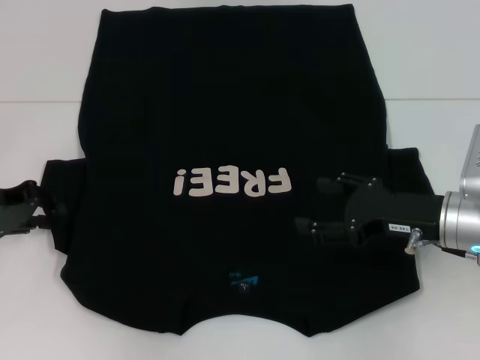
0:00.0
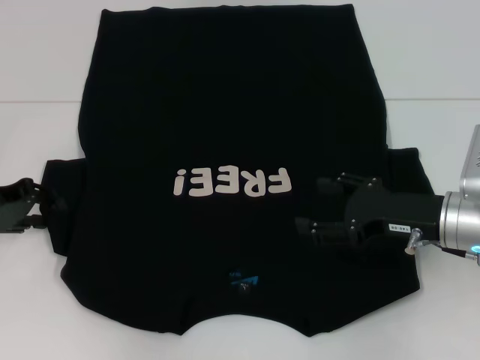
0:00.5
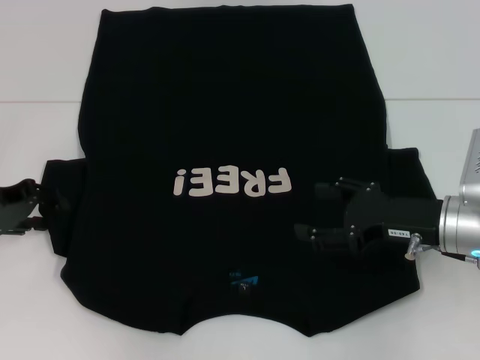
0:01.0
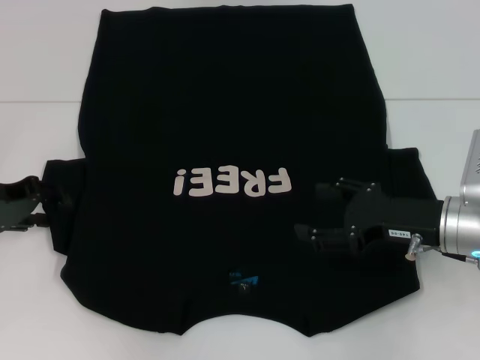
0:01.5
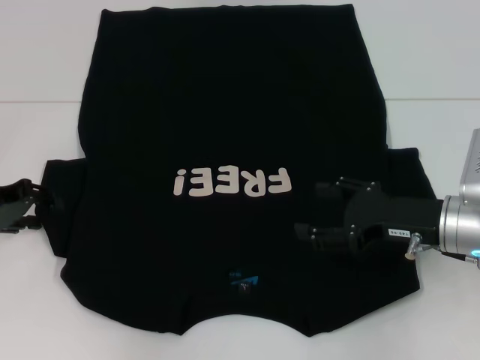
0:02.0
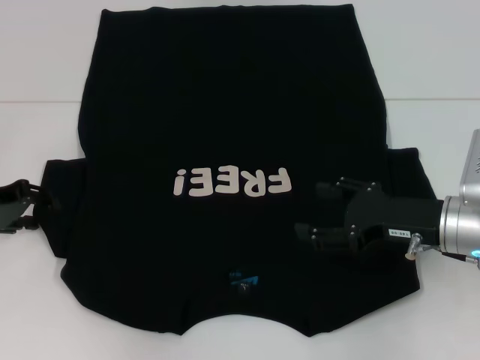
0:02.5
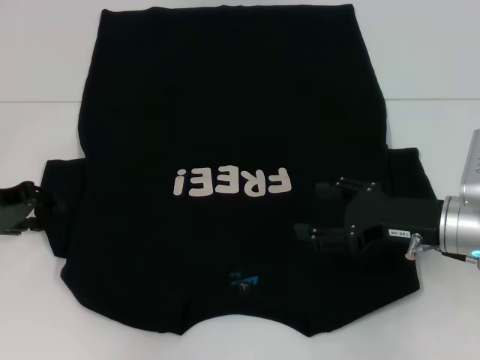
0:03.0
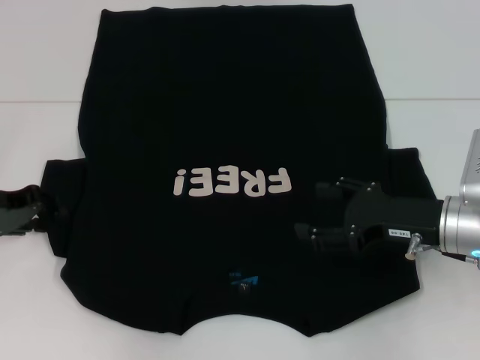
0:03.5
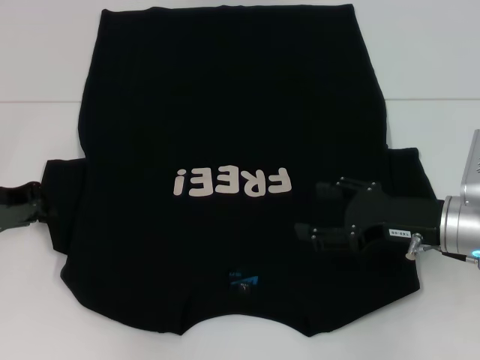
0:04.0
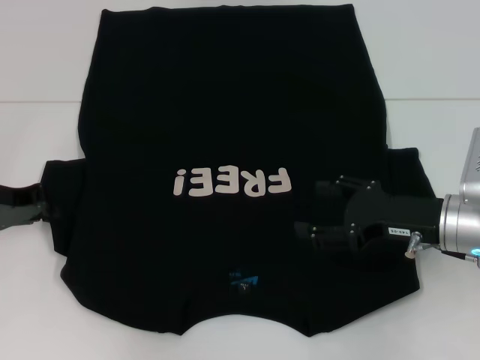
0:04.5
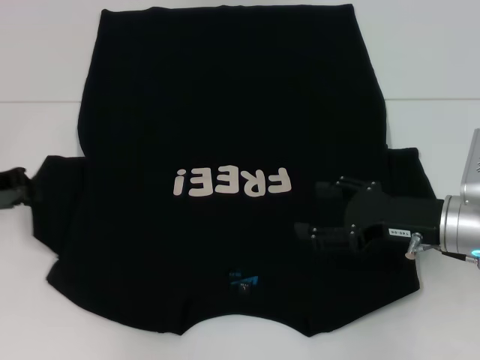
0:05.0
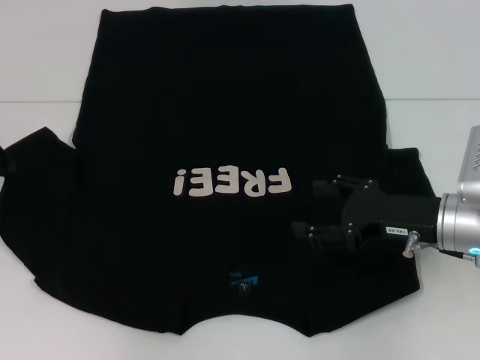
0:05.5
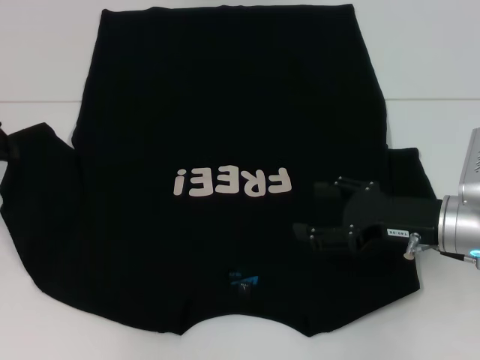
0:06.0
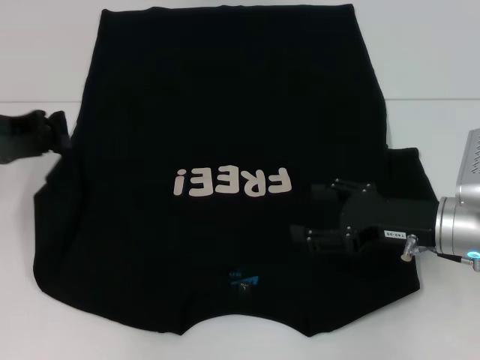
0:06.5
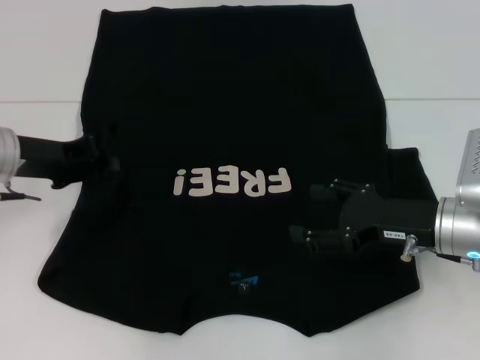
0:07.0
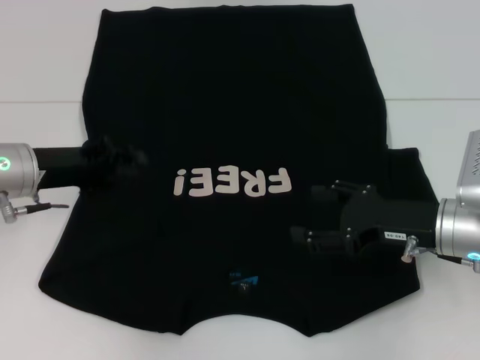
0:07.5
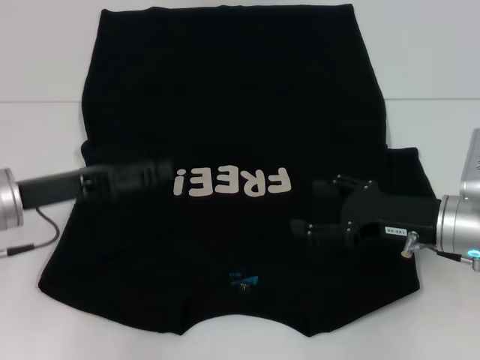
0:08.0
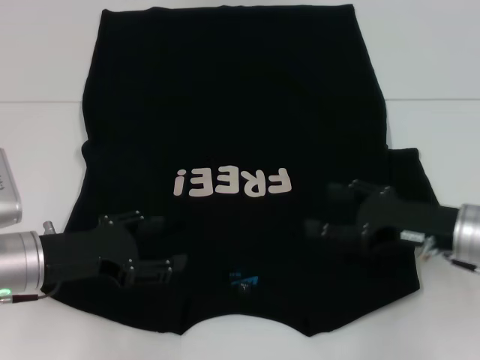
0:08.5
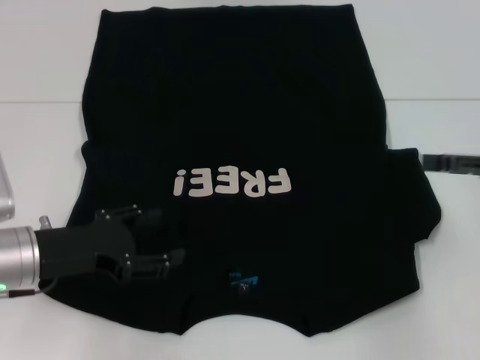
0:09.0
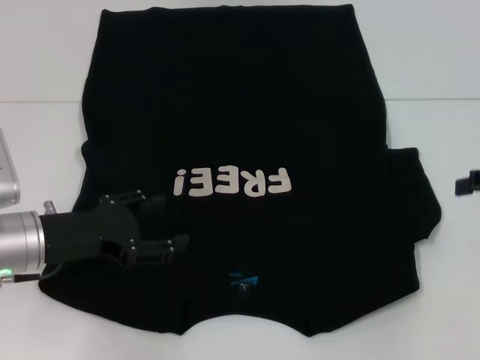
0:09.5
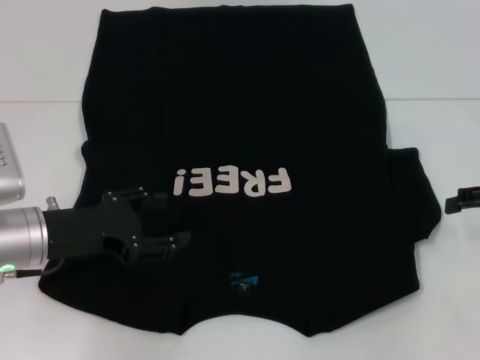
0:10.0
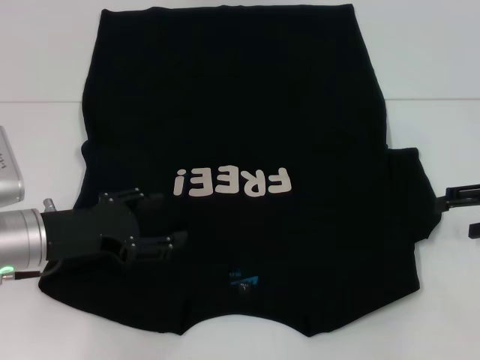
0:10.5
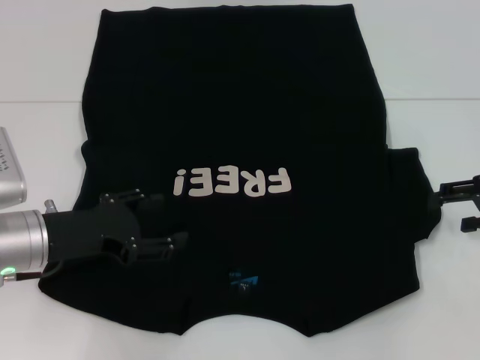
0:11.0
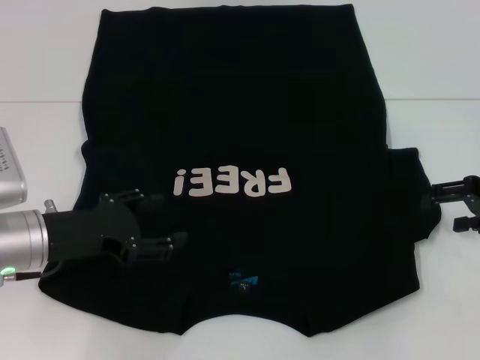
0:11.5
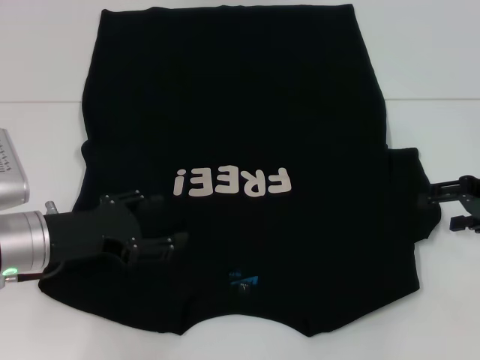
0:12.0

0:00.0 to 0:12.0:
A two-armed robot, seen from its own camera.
Step, 0:00.0 to 0:08.0: Fold the bottom left sleeve with your left hand.
0:00.0 to 0:02.0: Both grippers stay put.
0:04.0 to 0:06.0: The left gripper moves upward, about 5 cm.
0:06.0 to 0:08.0: The left gripper heads to the right, downward and backward, covering roughly 15 cm, and opens.
0:08.0 to 0:10.0: The right gripper shifts approximately 15 cm to the right and upward. The left gripper opens.
0:10.0 to 0:12.0: The grippers move only a little.

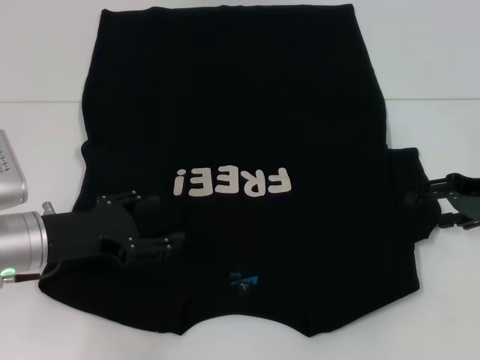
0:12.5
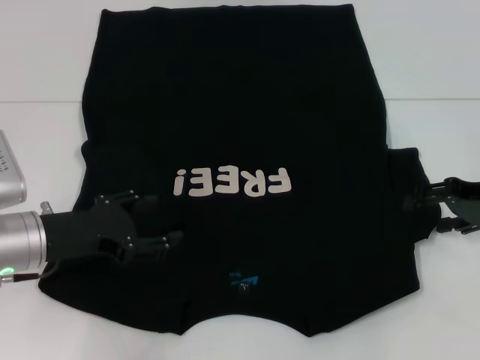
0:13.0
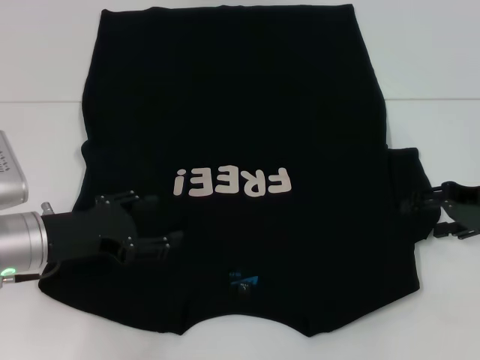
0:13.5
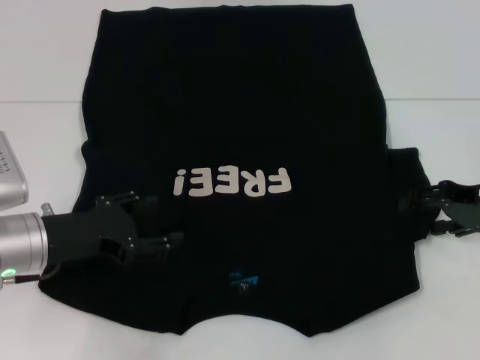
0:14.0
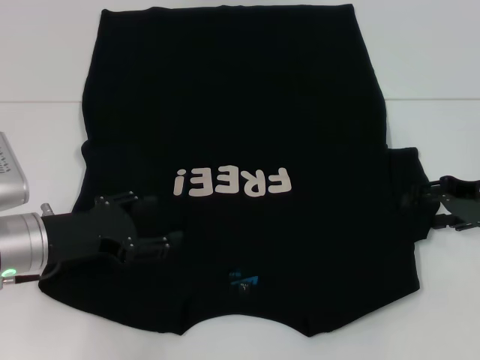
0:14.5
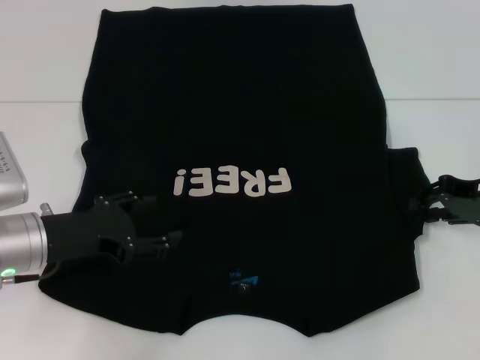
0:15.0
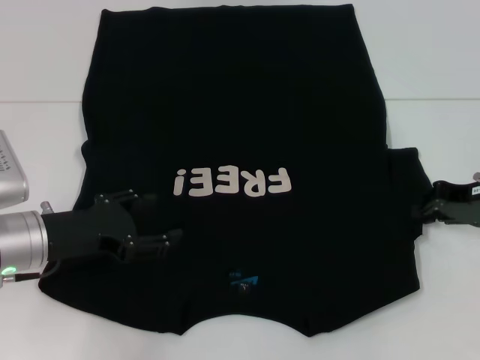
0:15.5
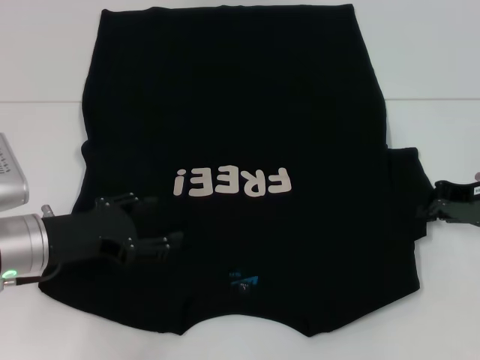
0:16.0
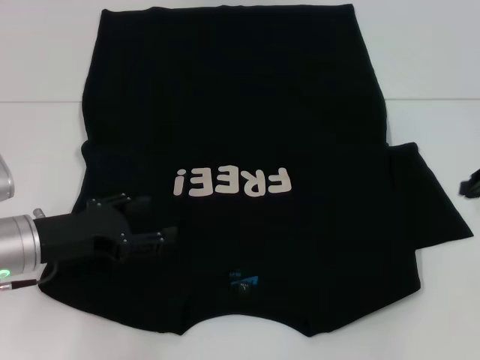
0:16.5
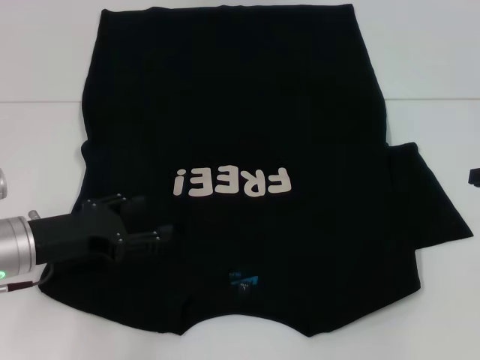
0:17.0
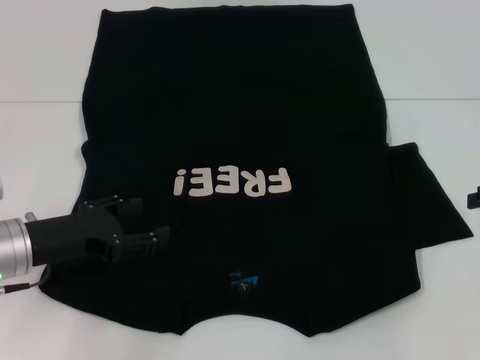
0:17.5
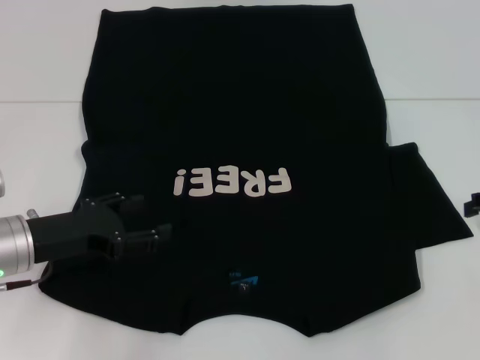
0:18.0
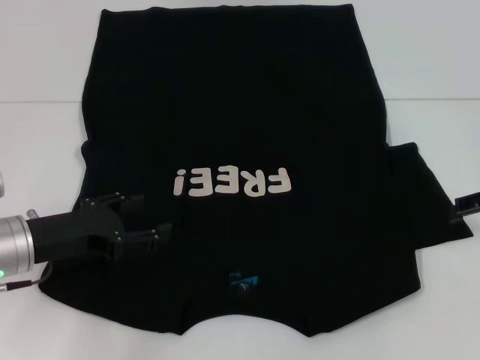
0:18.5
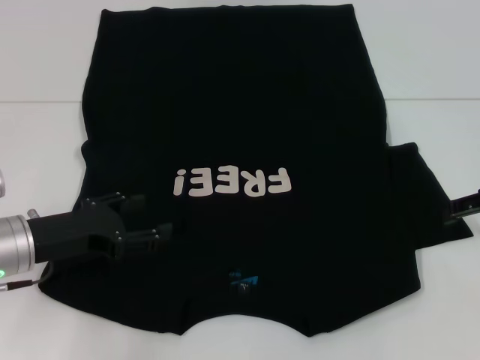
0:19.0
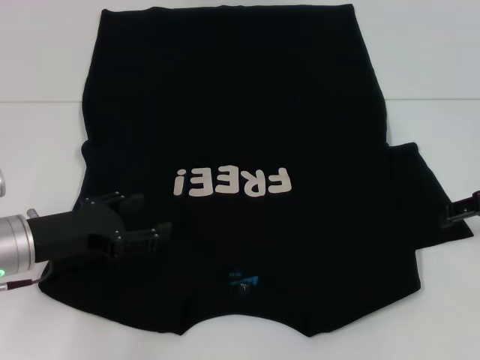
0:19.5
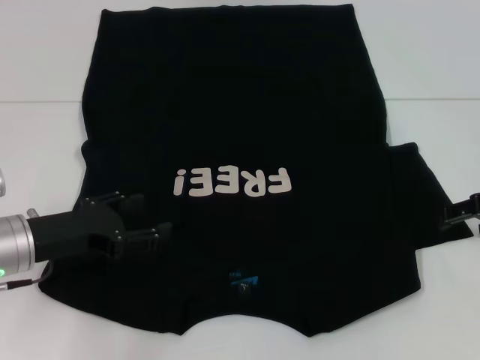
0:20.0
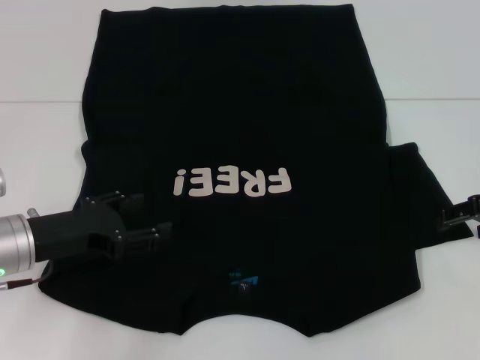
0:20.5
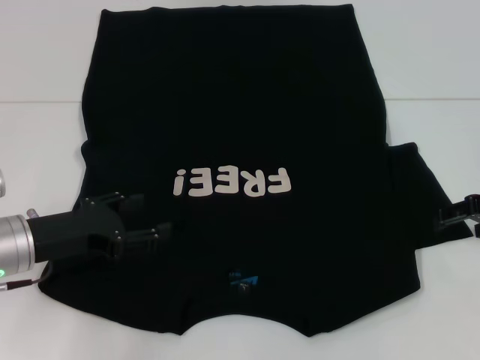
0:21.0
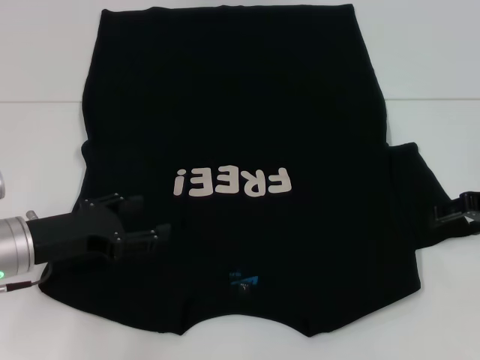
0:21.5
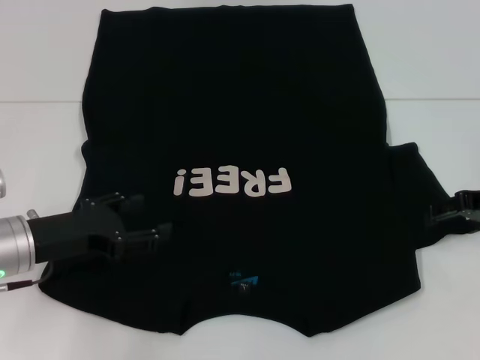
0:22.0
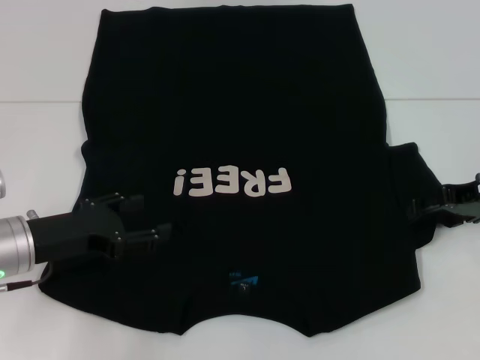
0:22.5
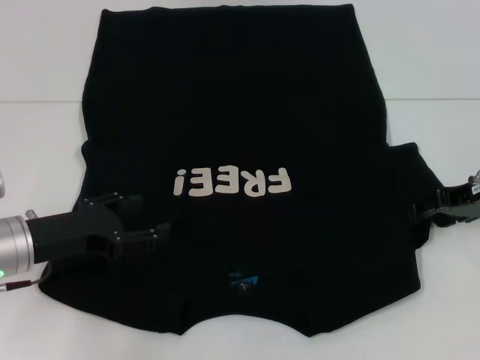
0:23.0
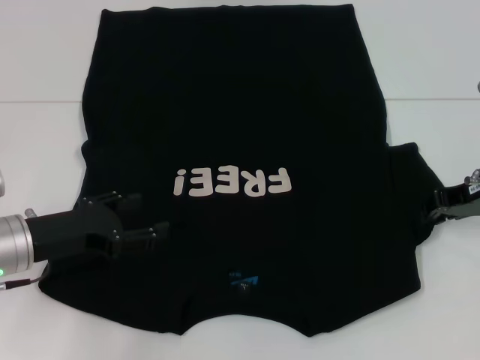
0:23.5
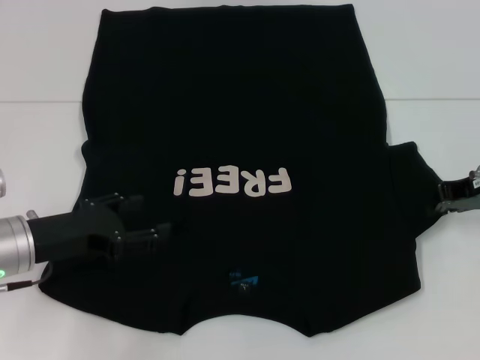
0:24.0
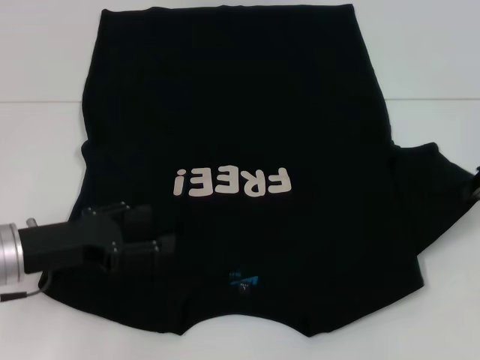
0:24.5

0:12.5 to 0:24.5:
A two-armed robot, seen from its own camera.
0:12.5 to 0:14.5: Both grippers stay put.
0:14.5 to 0:16.5: The right gripper closes up.
0:20.5 to 0:22.5: There are only small adjustments of the grippers.
0:22.5 to 0:24.5: The right gripper closes.

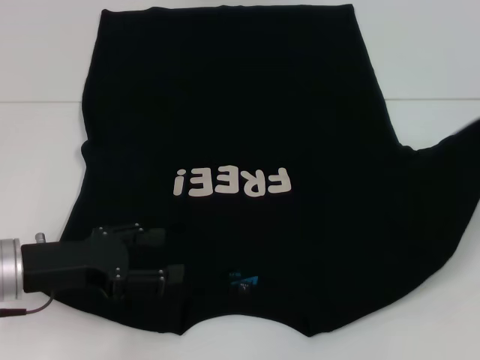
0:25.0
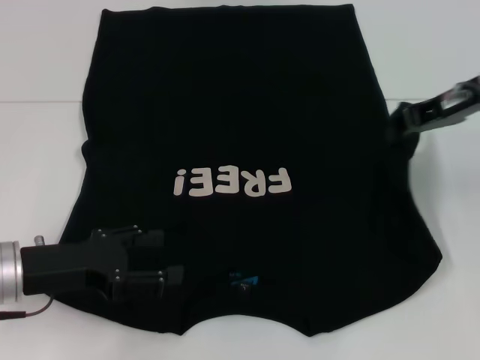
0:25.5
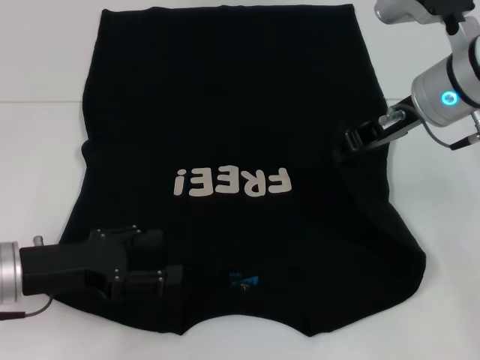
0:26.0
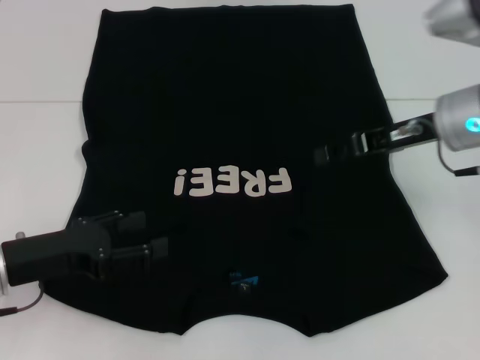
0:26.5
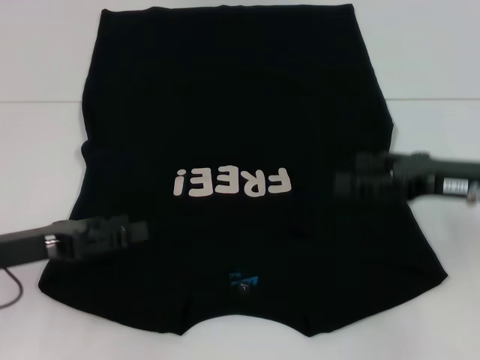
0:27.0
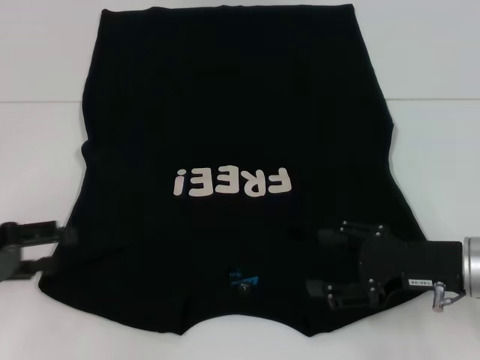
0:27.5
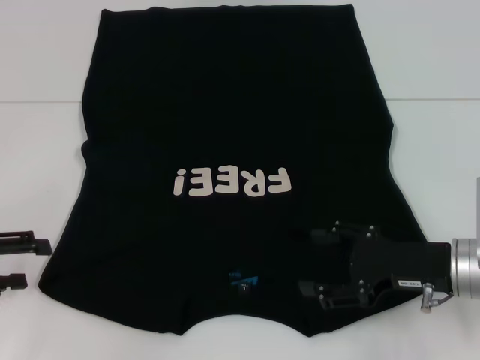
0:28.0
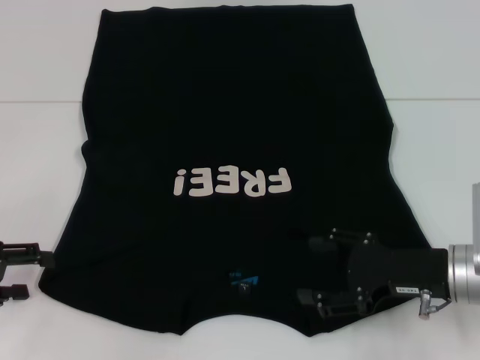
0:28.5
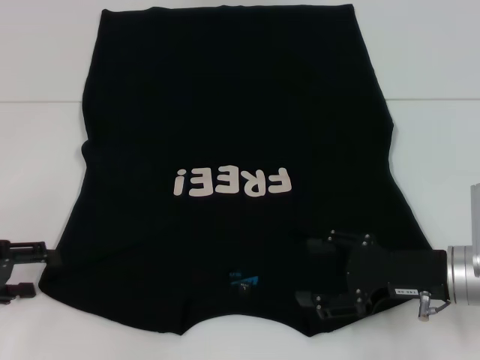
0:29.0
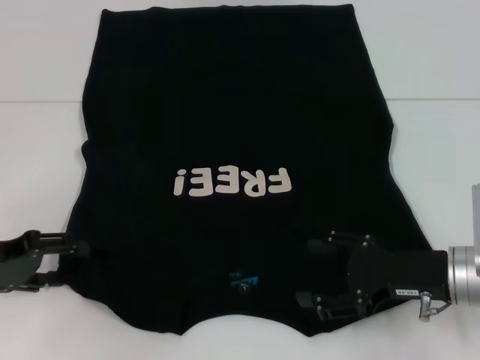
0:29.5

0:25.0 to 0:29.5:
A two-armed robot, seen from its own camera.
0:25.0 to 0:27.0: The right gripper travels downward, to the left and backward by about 10 cm, and opens its fingers.
0:27.0 to 0:29.5: The right gripper is displaced downward by roughly 5 cm.
